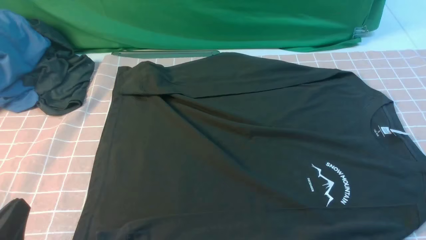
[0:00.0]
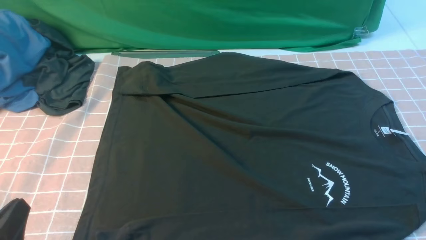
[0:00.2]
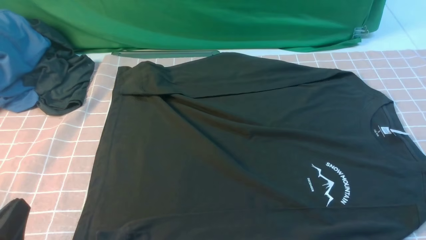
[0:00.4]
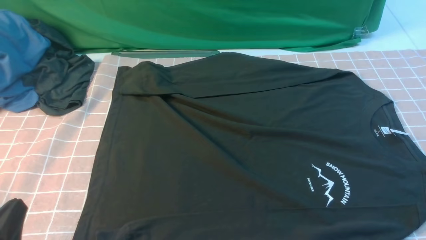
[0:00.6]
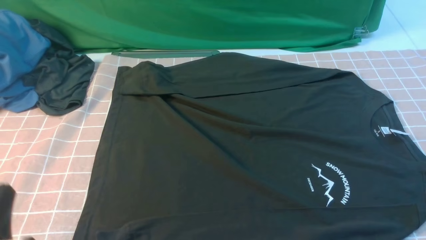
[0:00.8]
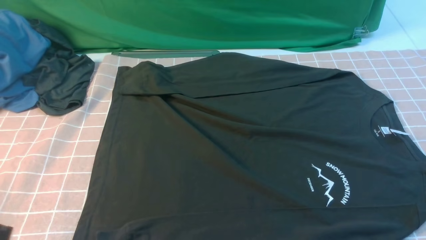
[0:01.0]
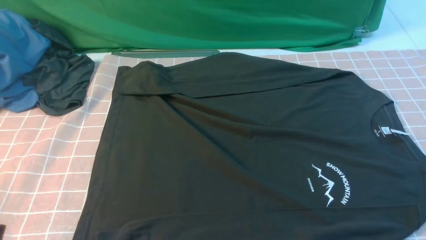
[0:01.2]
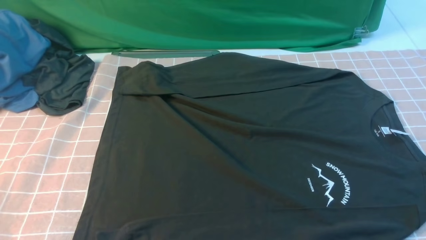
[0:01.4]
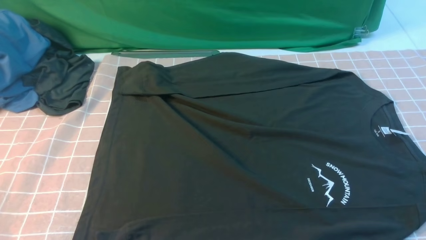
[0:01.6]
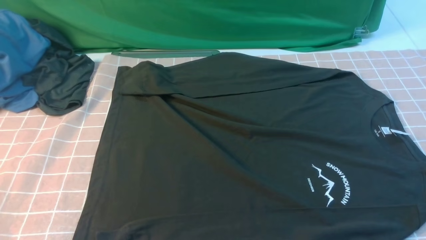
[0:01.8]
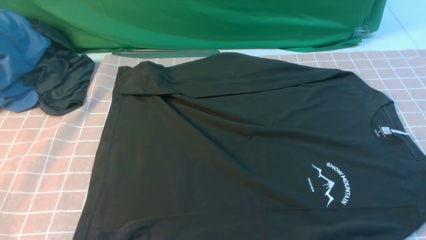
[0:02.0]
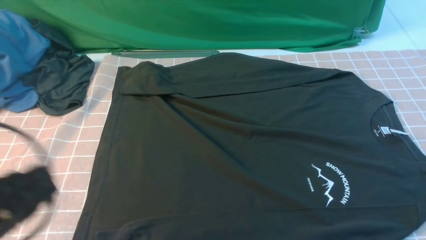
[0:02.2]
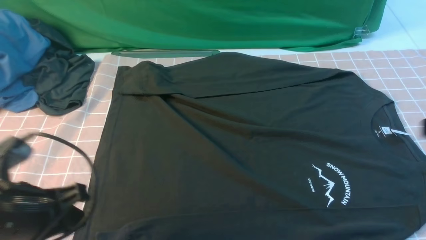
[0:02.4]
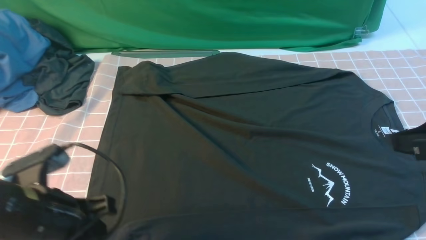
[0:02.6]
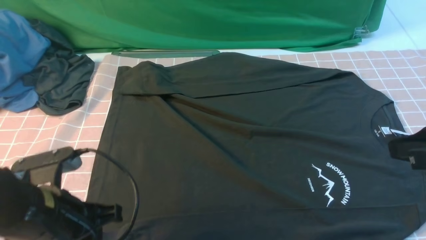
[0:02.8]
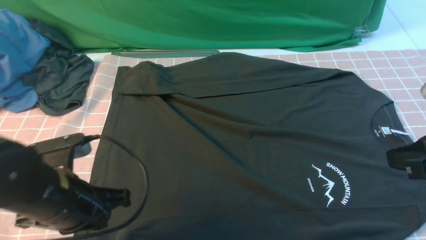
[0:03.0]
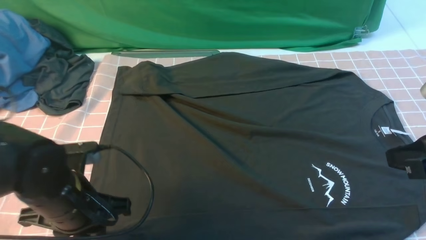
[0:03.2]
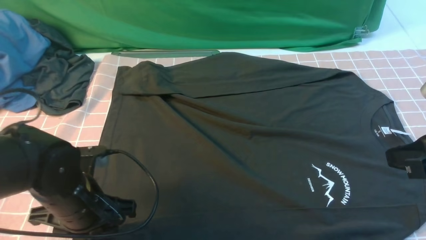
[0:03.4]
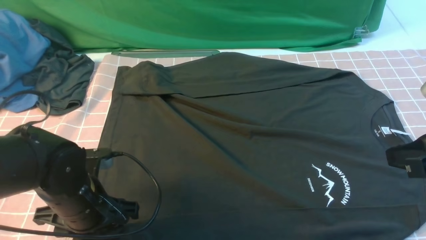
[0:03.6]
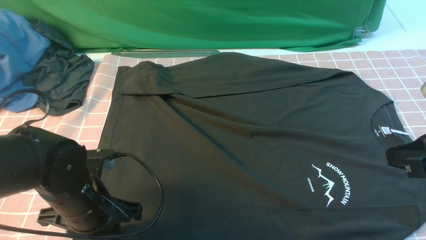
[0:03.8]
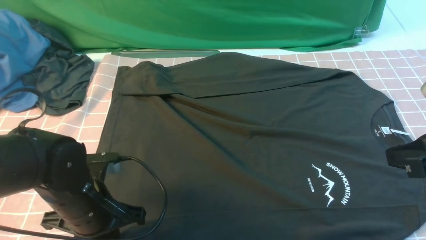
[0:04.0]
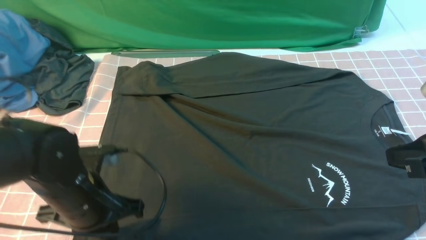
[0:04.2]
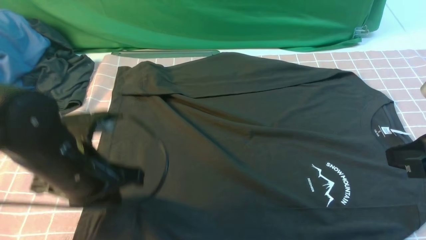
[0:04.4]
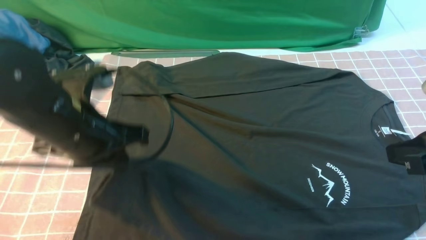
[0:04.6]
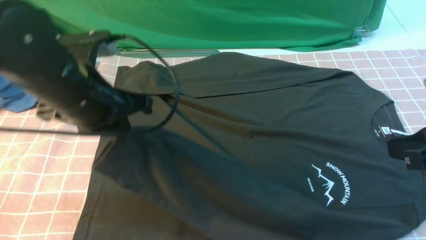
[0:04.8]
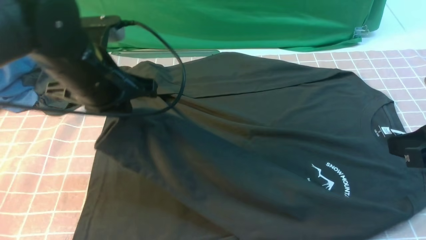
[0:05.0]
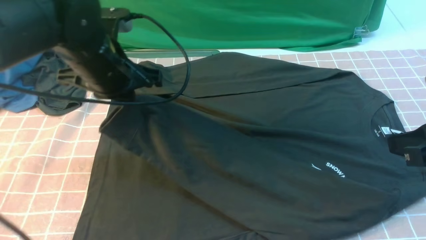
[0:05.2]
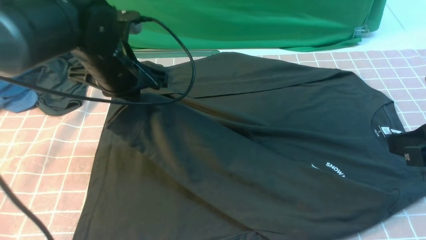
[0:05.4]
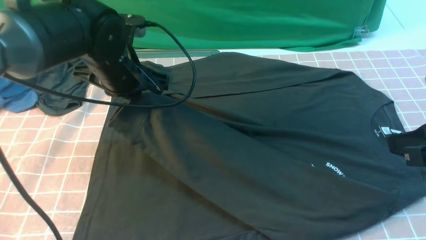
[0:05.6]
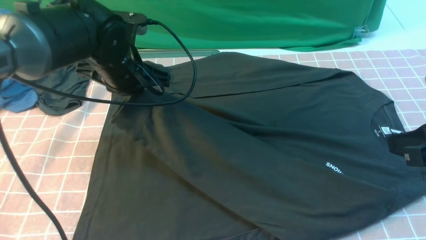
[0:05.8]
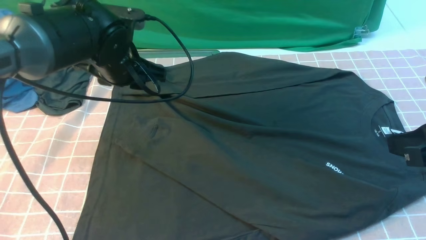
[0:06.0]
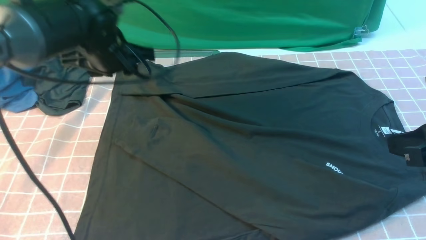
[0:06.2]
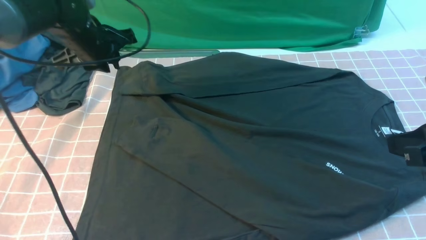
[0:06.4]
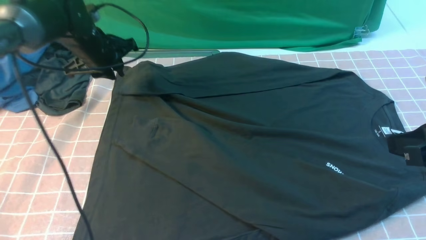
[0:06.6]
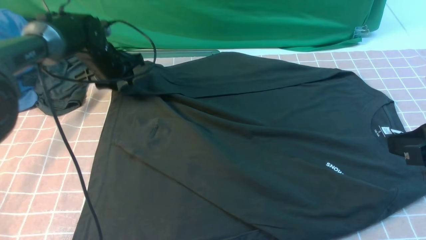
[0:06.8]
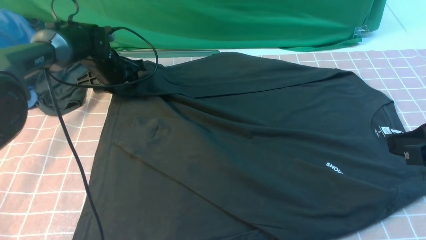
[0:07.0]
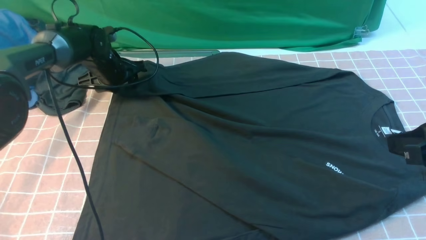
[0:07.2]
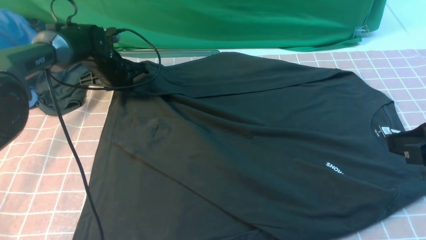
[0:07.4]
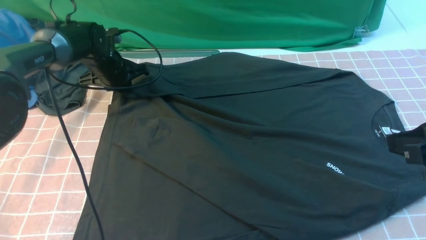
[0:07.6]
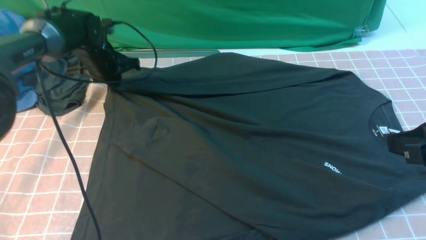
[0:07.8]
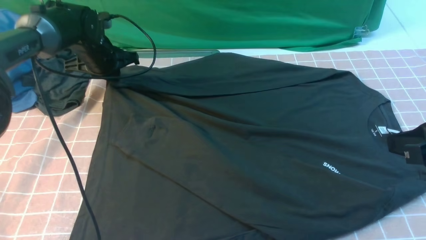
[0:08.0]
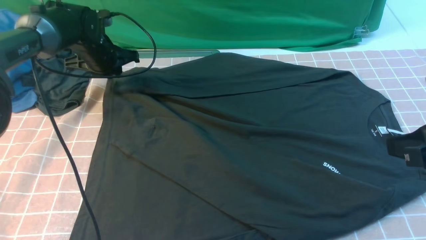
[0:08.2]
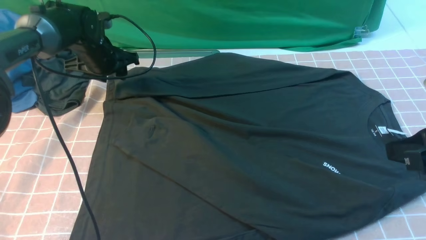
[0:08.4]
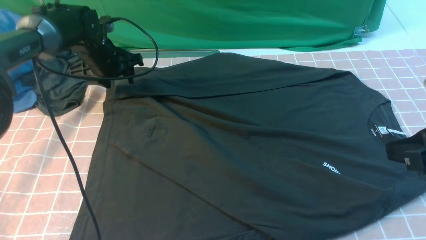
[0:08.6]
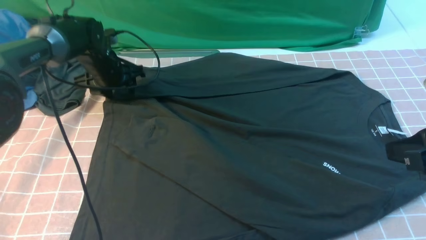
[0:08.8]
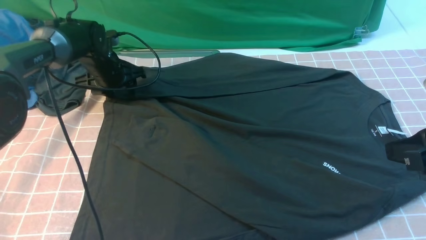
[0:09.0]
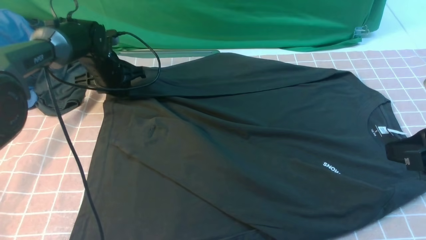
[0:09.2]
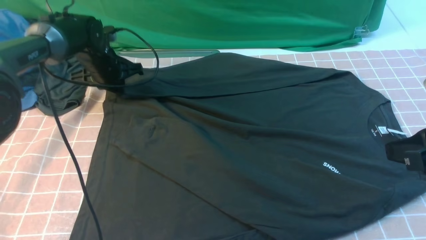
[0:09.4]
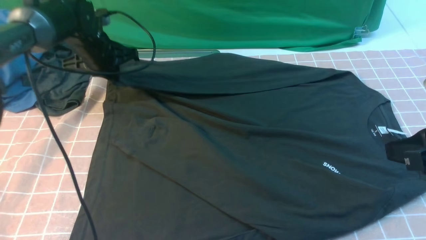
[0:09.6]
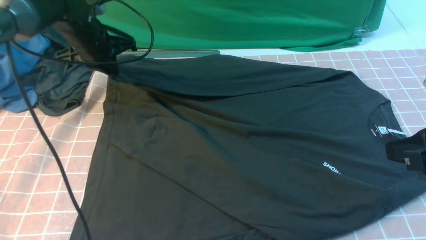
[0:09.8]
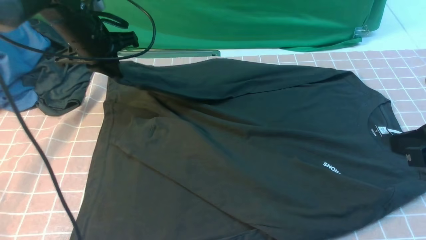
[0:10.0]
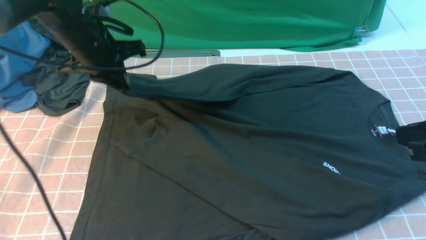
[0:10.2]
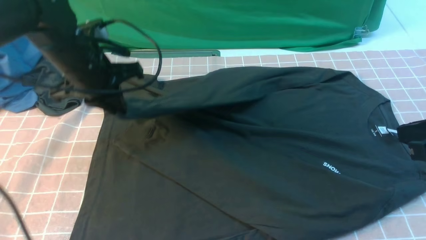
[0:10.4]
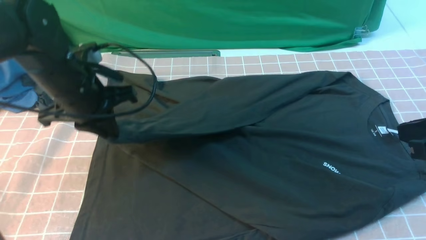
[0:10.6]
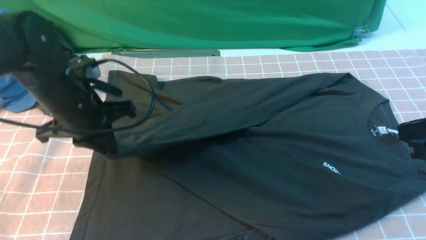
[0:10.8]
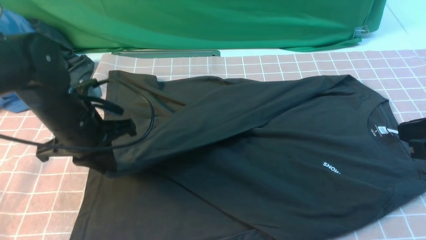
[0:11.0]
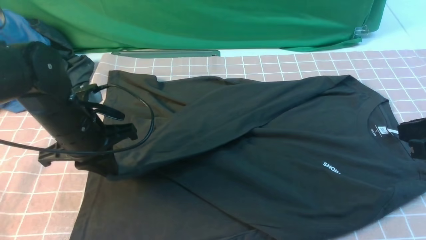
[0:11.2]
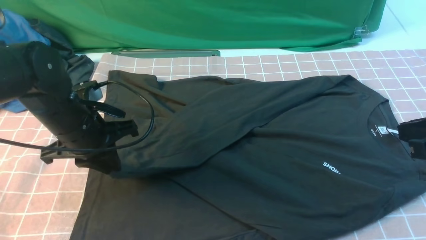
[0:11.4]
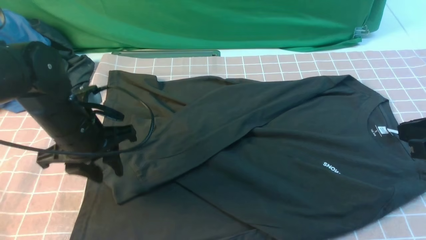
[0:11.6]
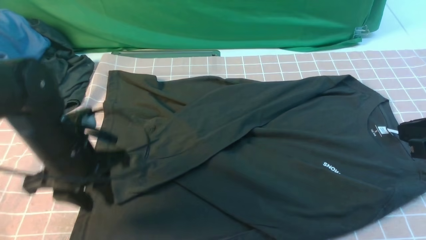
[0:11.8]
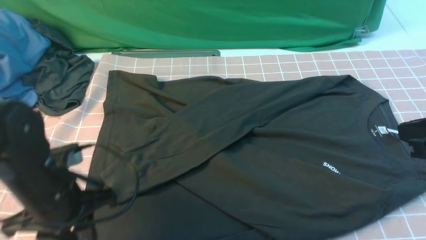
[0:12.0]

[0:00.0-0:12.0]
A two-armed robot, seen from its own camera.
Step, 0.0 to 4.0 s: use the left arm to clamp the cuff closest to it.
Step, 4.2 to 5.8 s: use the left arm to drag and place the cuff at the centered position on the left edge of the fabric.
Step, 6.2 to 9.2 s: use the left arm to clamp the cuff farthest from it.
Step, 9.4 to 11.4 s: use the left arm to drag and drop the cuff onto the cuff closest to the left arm.
0.0 to 1.6 s: The left gripper travels upward by some 5 cm.
1.6 to 3.0 s: The left gripper goes roughly 15 cm forward and to the right, while the right gripper moves forward and upward, some 15 cm, and closes up.
3.0 to 4.4 s: The left gripper changes place by approximately 5 cm, and opens and closes again.
4.4 to 6.0 s: The left gripper moves forward, roughly 15 cm, and opens up.
6.0 to 7.6 s: The left gripper moves forward, downward and to the left, some 15 cm, and closes its fingers.
7.6 to 9.0 s: The left gripper opens.
9.0 to 10.4 s: The left gripper heads backward and upward, covering roughly 20 cm, and closes its fingers.
10.4 to 12.0 s: The left gripper heads backward and downward, covering roughly 15 cm, and opens up.

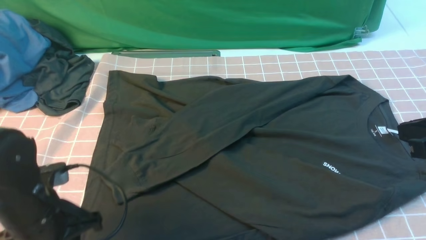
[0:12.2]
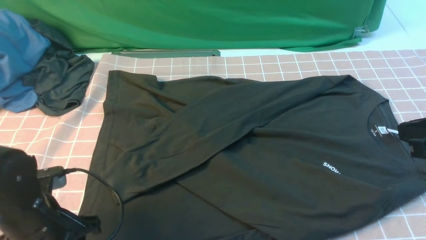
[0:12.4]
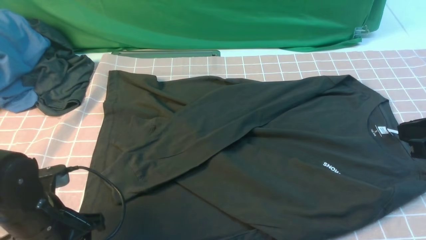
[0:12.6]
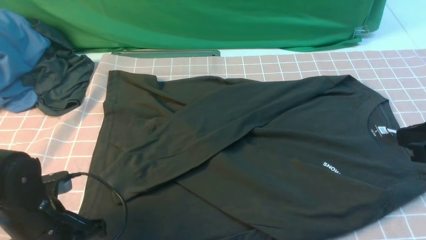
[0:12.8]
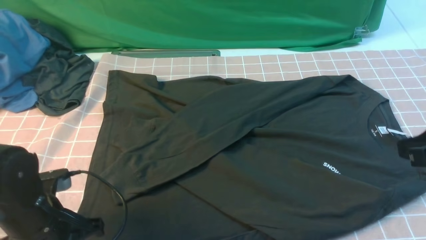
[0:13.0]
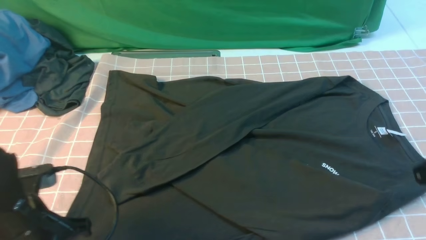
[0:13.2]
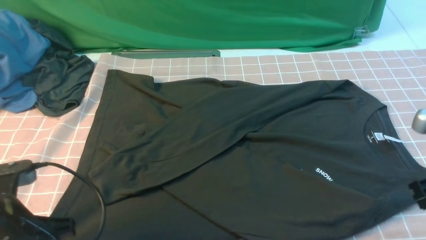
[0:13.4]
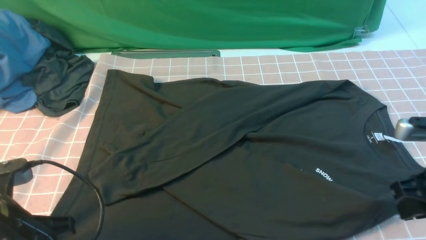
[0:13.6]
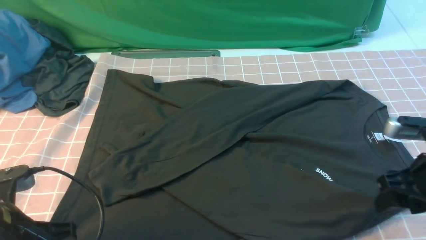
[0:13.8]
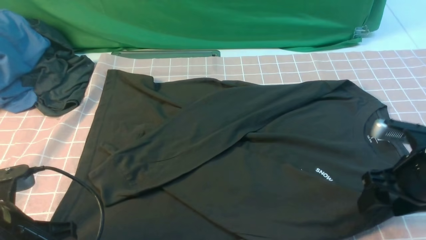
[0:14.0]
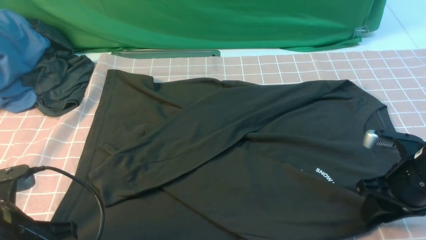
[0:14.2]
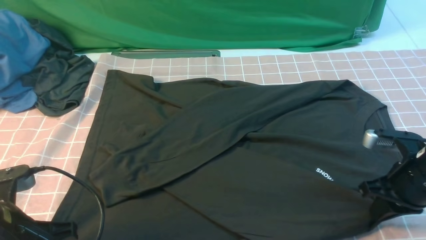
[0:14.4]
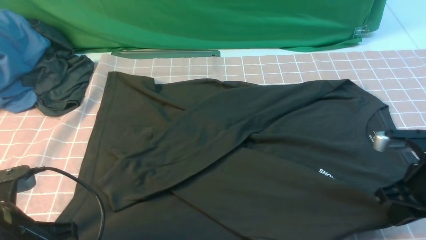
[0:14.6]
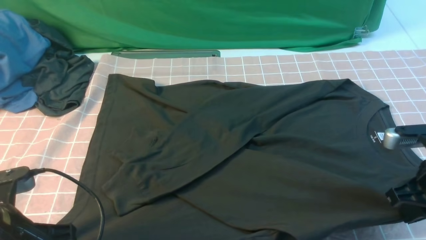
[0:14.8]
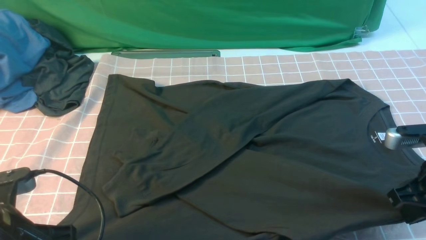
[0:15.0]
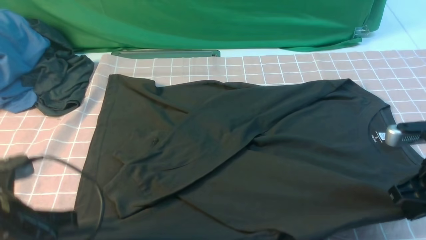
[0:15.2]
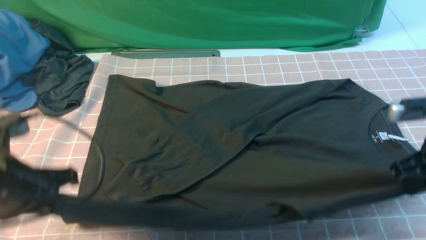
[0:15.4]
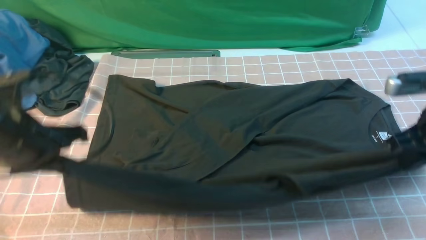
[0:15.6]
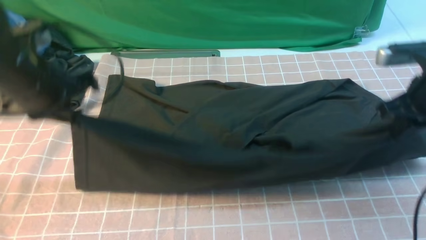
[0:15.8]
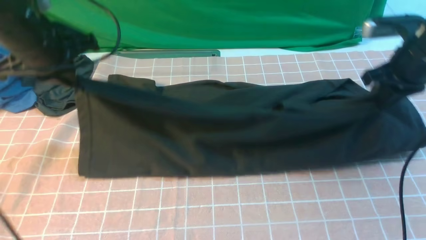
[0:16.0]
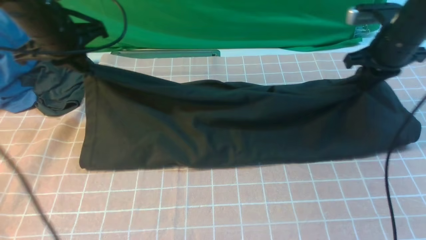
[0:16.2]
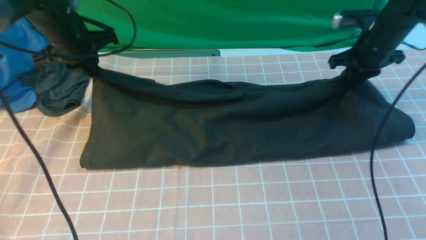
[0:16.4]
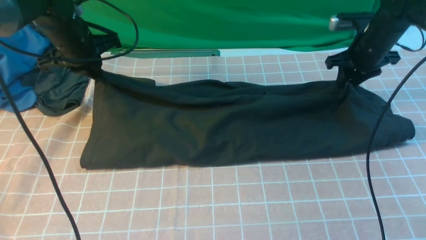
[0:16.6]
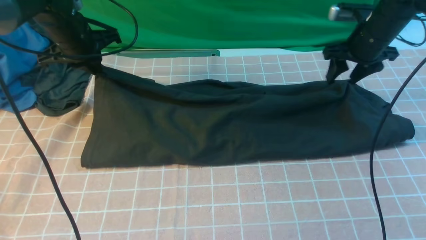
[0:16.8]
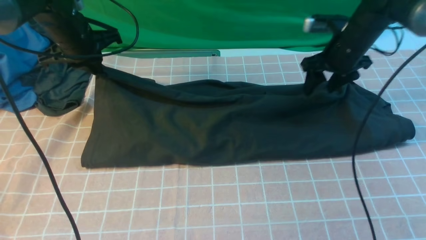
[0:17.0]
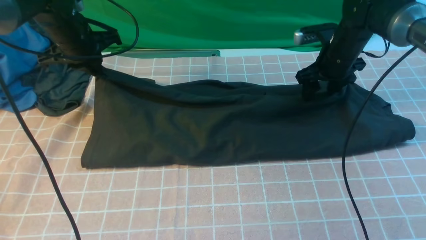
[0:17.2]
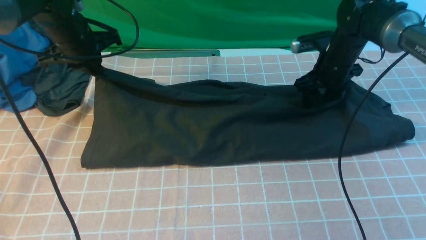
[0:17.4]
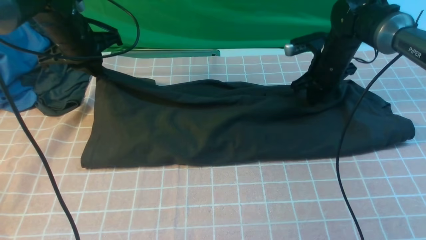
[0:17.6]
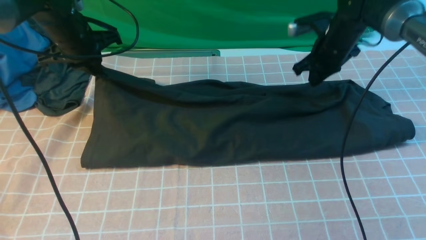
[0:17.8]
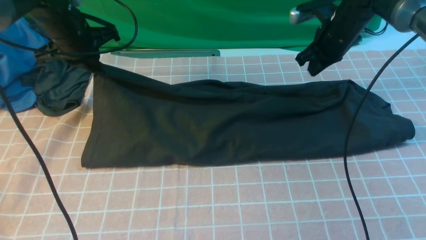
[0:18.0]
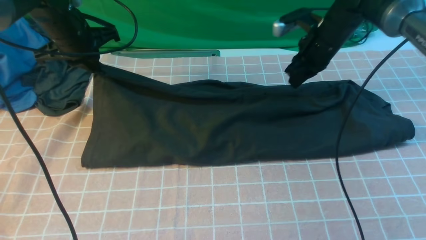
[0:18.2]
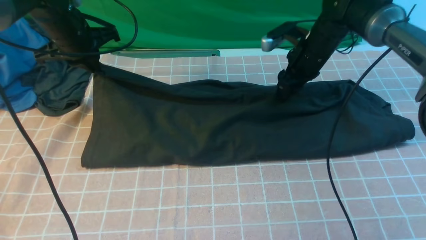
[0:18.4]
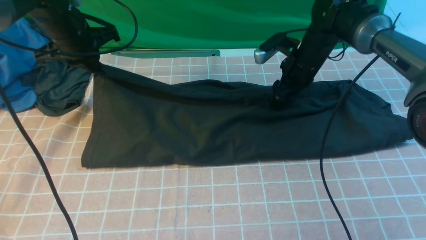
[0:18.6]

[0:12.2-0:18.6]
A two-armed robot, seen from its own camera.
Step, 12.2 to 14.6 s: use both arms simultaneously to clamp the lower edge of the clothing fabric.
12.2 to 13.8 s: The right gripper shifts approximately 10 cm downward, and opens its fingers. Meanwhile the left gripper changes place by some 5 cm, and closes.
13.8 to 15.4 s: The right gripper closes up. The left gripper moves roughly 5 cm.
15.4 to 17.0 s: Both grippers move forward, roughly 25 cm. The right gripper opens.
17.0 to 18.6 s: The right gripper is displaced to the left by some 5 cm, and closes.
